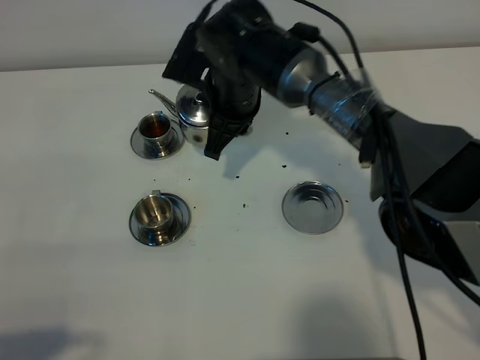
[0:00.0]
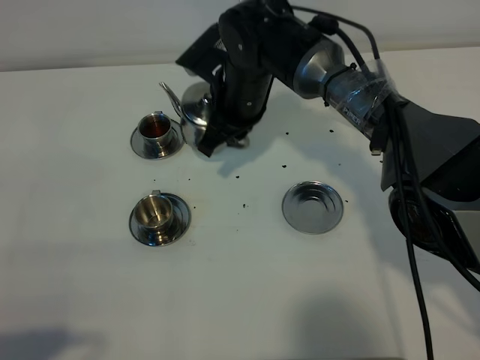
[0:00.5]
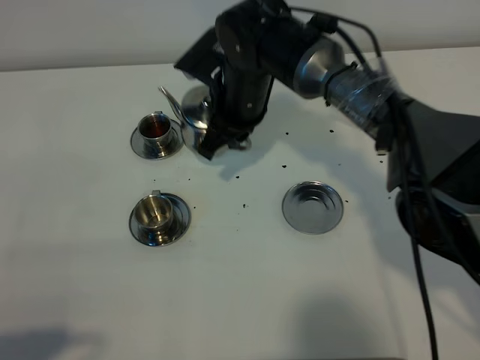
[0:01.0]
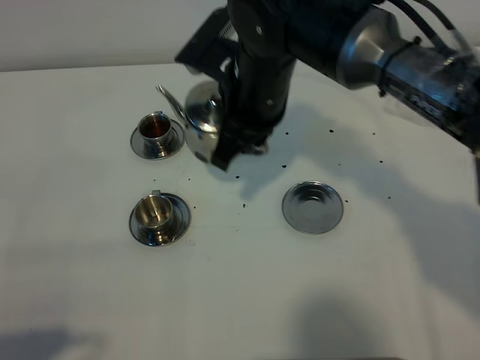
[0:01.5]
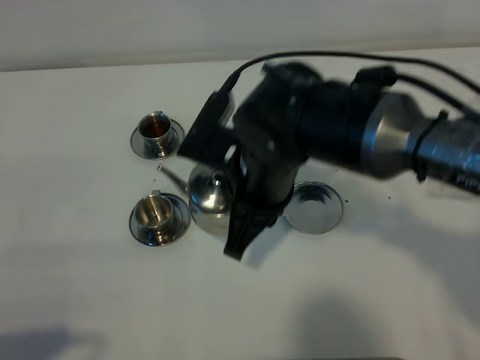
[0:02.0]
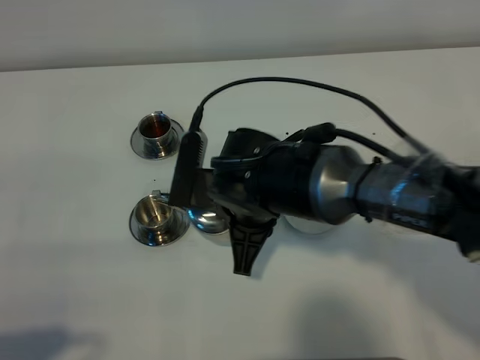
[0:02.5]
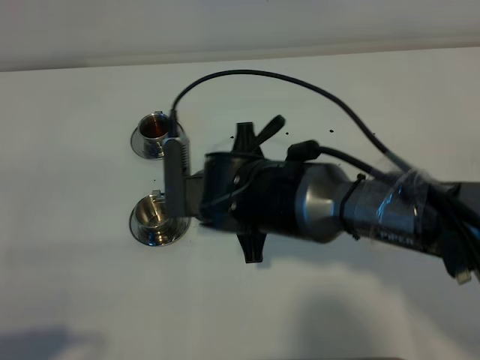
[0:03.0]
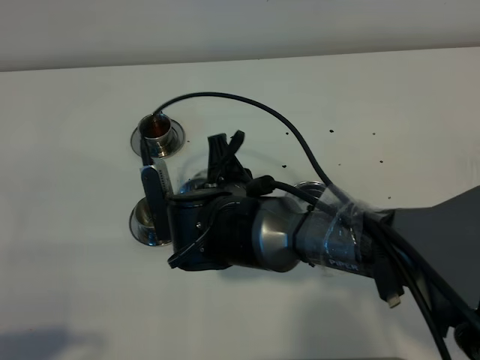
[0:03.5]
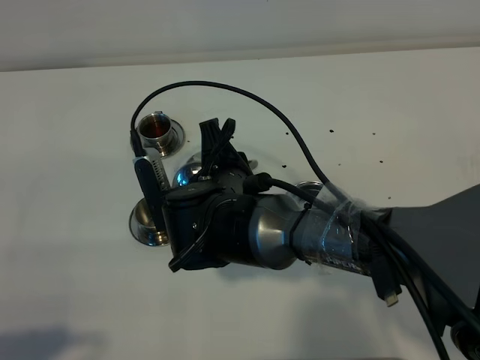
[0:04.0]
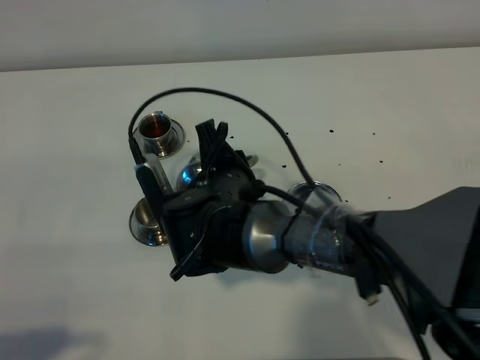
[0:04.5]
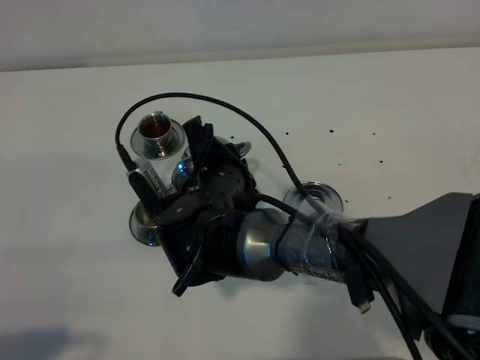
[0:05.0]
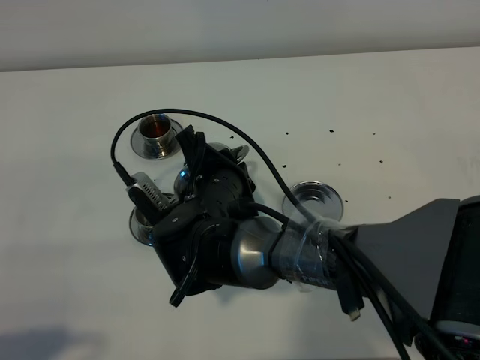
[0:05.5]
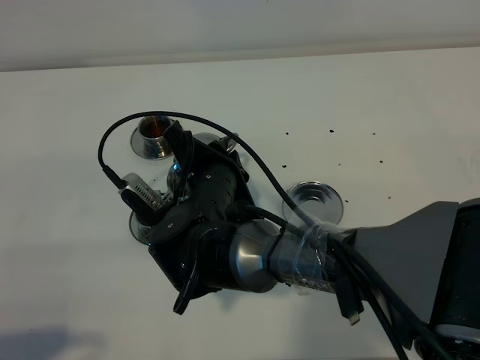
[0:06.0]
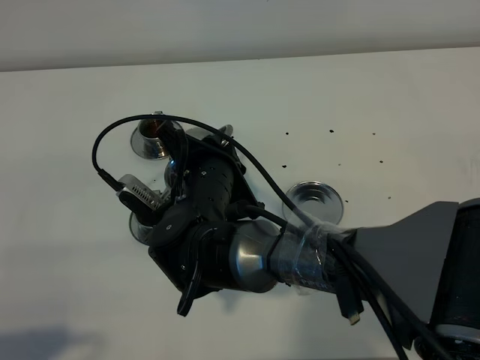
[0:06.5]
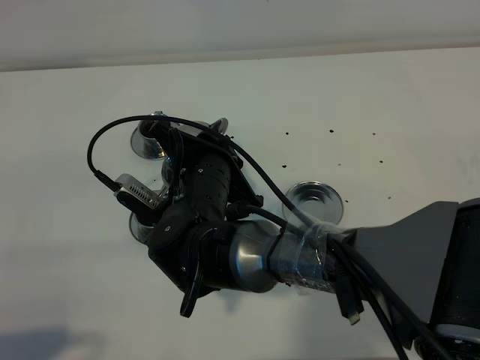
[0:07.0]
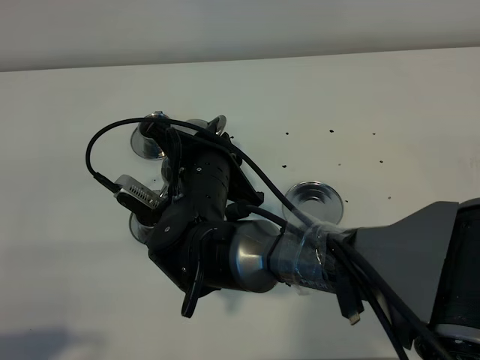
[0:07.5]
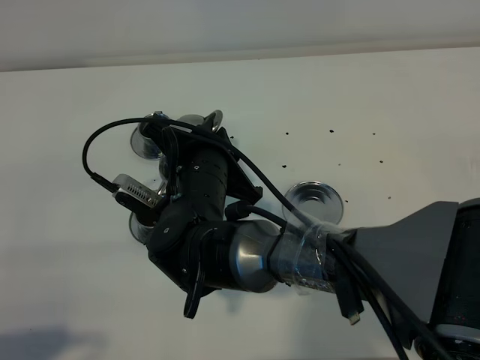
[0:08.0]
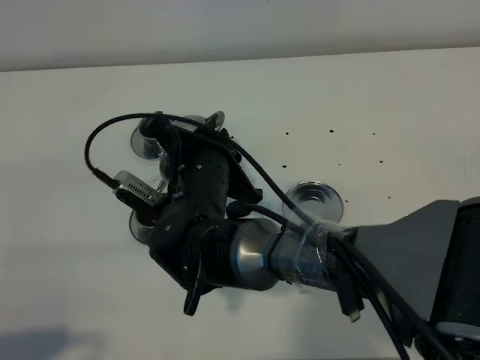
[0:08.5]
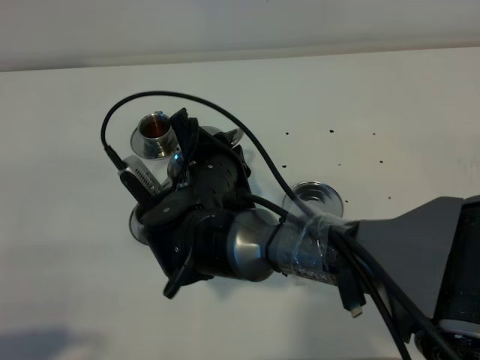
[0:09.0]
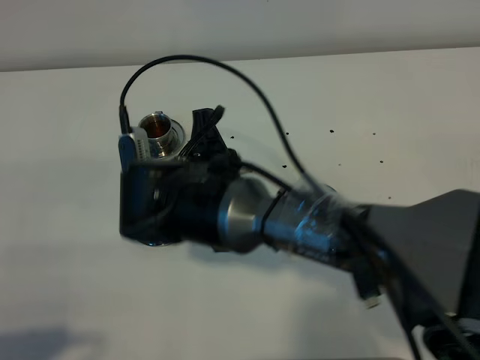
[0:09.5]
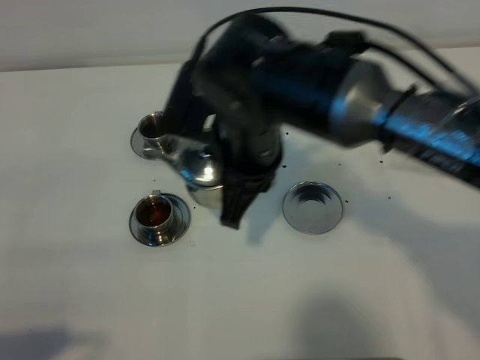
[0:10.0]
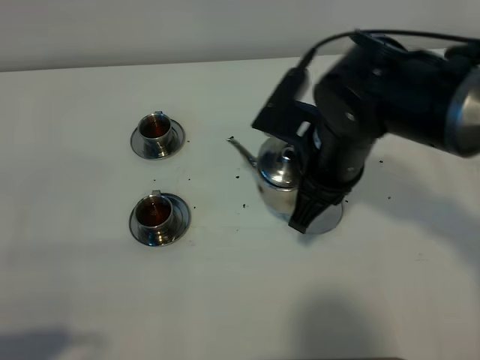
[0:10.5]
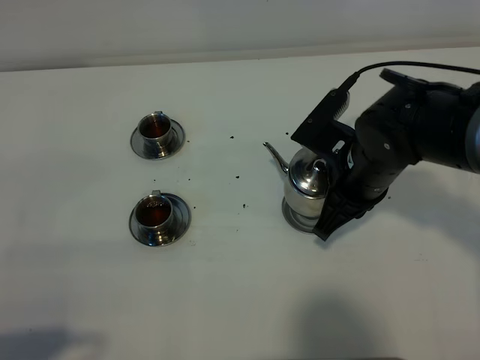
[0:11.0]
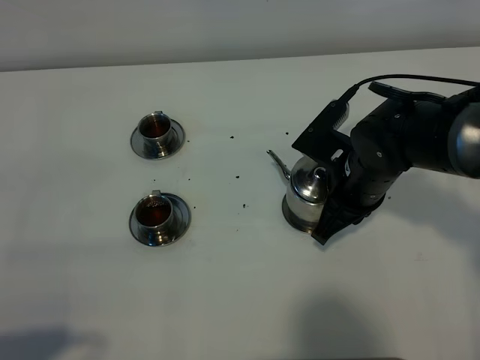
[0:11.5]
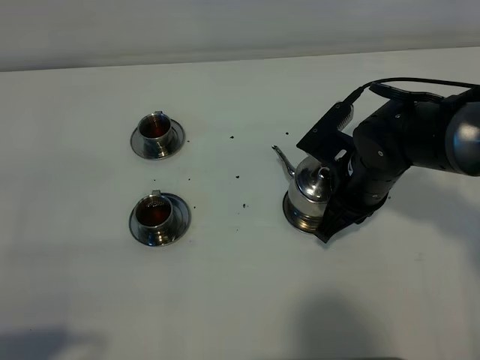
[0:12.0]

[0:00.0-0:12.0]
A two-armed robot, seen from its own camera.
Task of the whole recording: grasp the stainless steel teapot and pour the tea into the two stainless steel teacups one by one, put the stainless steel teapot back in its original place.
Step, 0:00.0 to 0:09.5: Pour tea into the teacup with the right gripper.
0:00.0 to 0:02.0: The right gripper travels backward by some 15 cm.
0:02.0 to 0:04.0: The right gripper heads downward and to the left, covering roughly 10 cm.
0:06.0 to 0:08.0: The grippers stay close to where they were, moving slightly.
0:08.0 to 0:10.0: The right gripper goes about 10 cm upward and to the right.
0:10.0 to 0:12.0: The right gripper is displaced to the right and downward by about 15 cm.

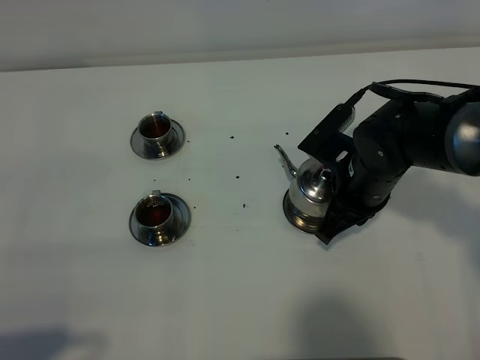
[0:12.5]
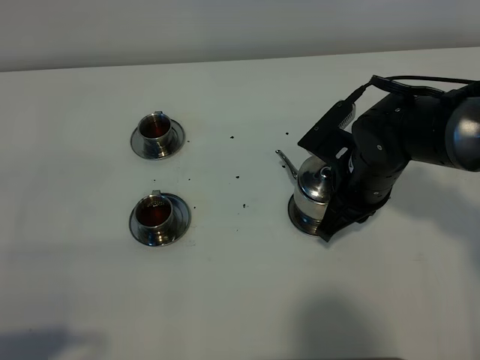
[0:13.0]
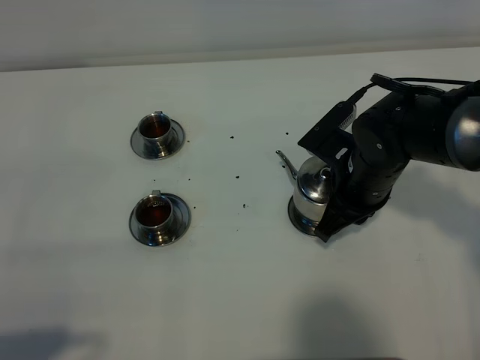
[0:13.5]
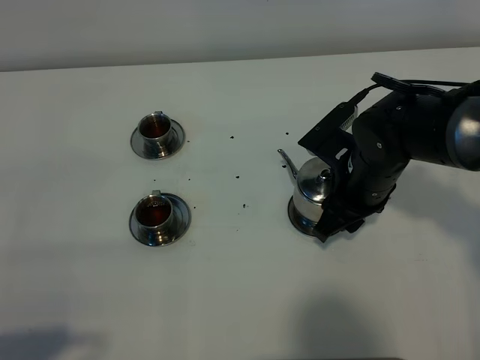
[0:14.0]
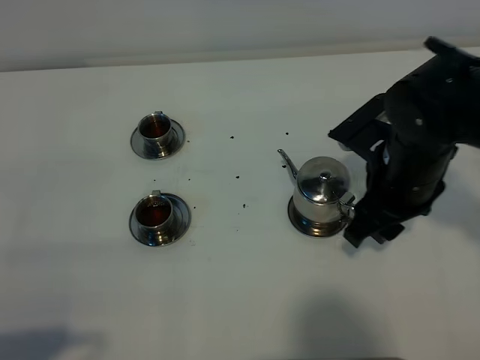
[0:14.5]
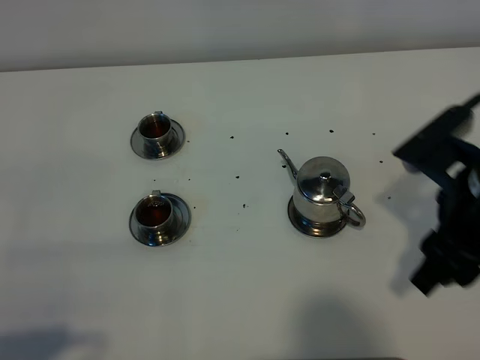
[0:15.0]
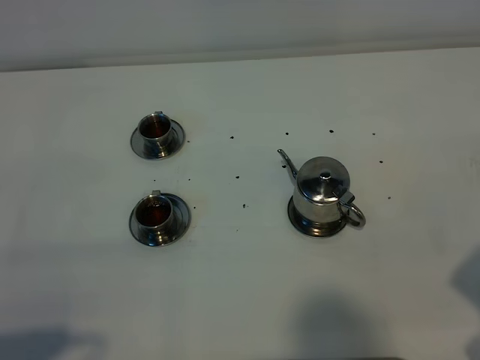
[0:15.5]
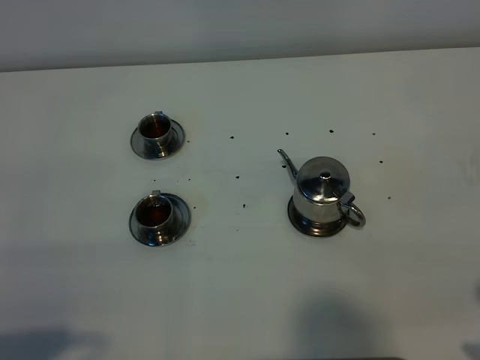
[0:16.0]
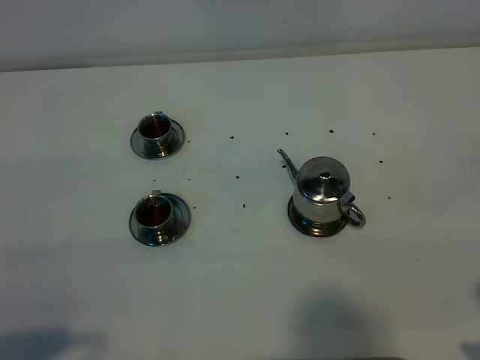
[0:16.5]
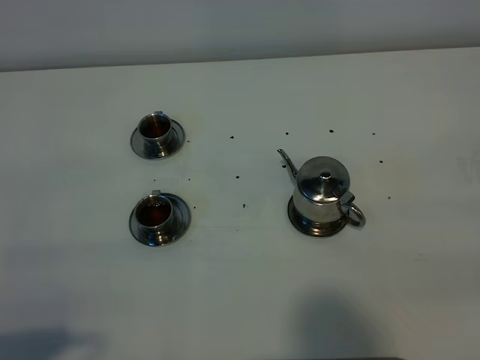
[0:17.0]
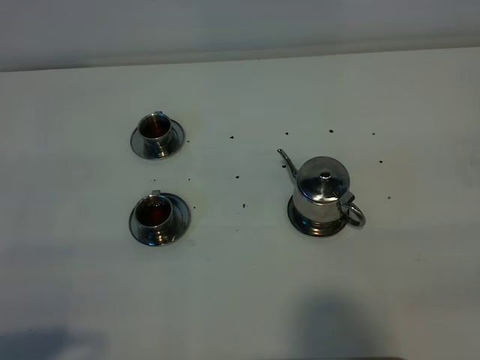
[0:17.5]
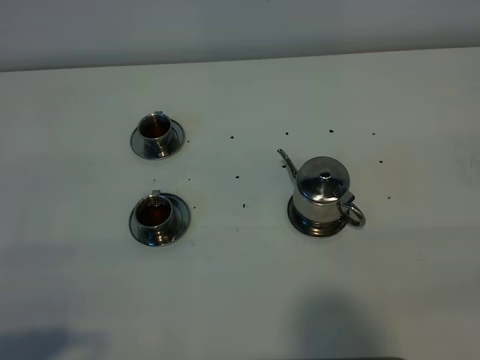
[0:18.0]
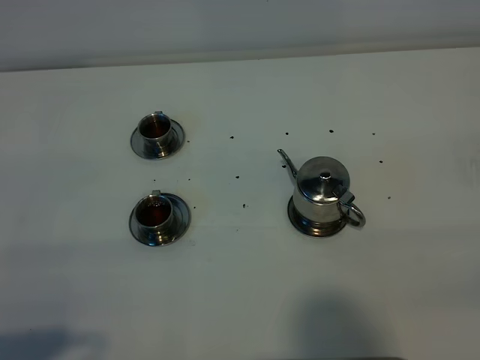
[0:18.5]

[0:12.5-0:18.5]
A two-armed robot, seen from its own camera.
Task of the whole recording: grasp the stainless steel teapot and pour the tea into the two stainless steel teacups one by one, put the stainless steel teapot back in its original place.
0:12.5 to 0:14.5: The right gripper moves upward, about 5 cm, and opens its fingers.
0:14.5 to 0:16.5: The right gripper travels backward and to the right by about 25 cm.
